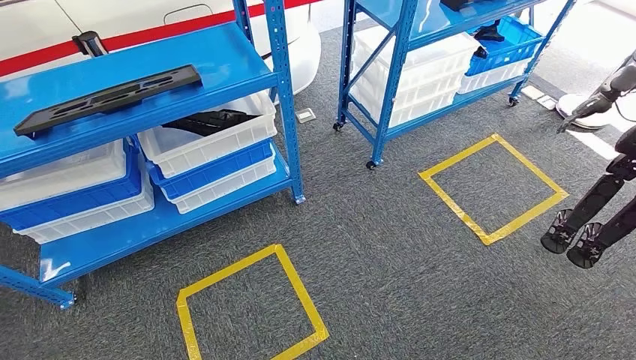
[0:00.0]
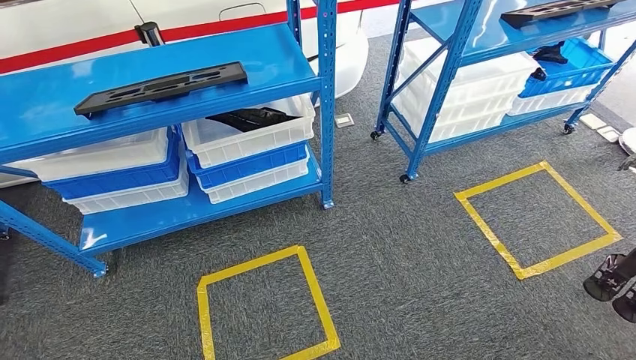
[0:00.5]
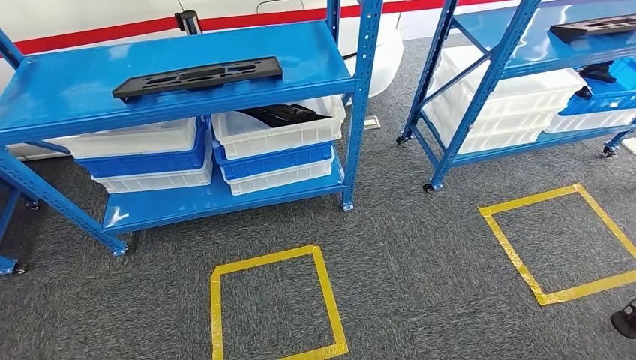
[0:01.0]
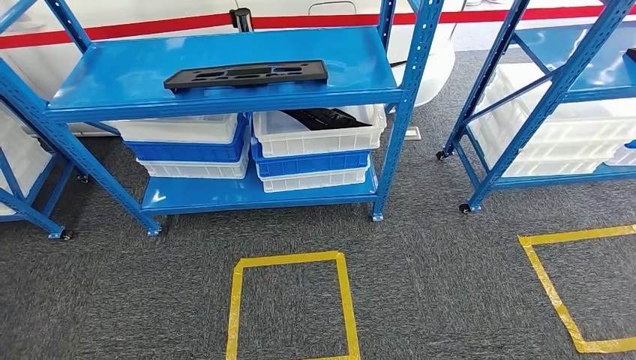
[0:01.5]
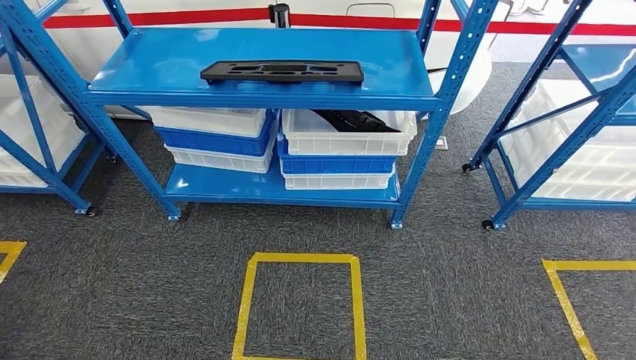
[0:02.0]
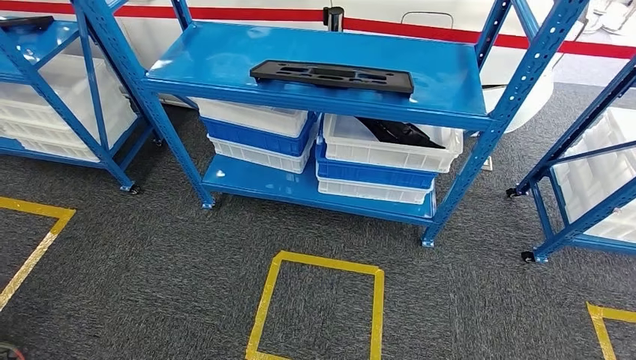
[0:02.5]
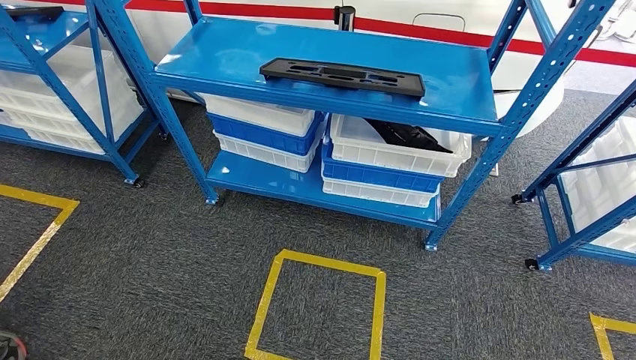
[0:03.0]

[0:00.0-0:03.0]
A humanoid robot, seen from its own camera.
Step, 0:00.0 to 0:03.0: Move to the initial position of the shelf.
